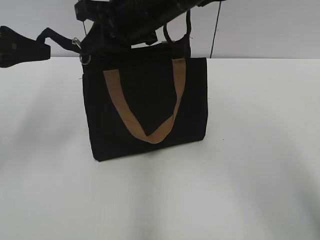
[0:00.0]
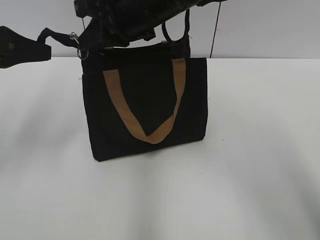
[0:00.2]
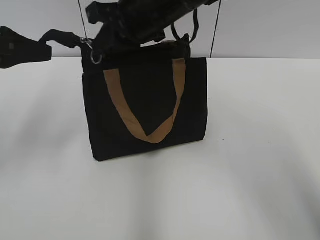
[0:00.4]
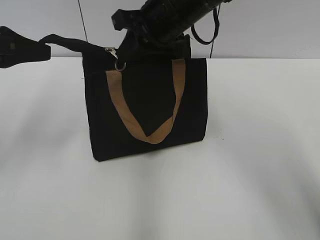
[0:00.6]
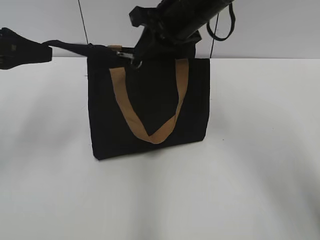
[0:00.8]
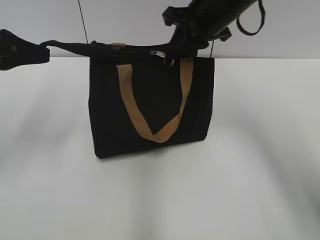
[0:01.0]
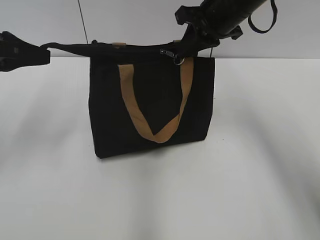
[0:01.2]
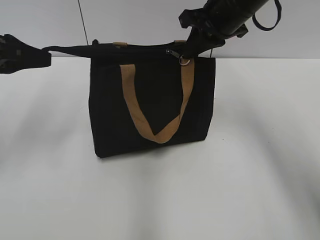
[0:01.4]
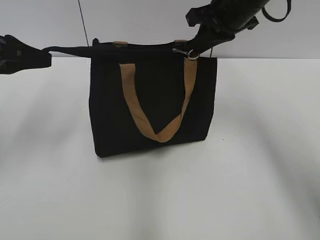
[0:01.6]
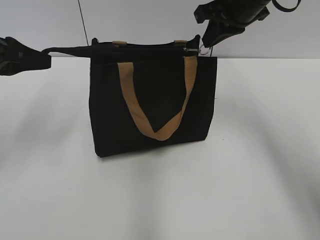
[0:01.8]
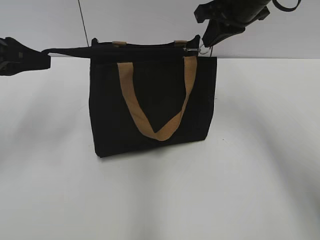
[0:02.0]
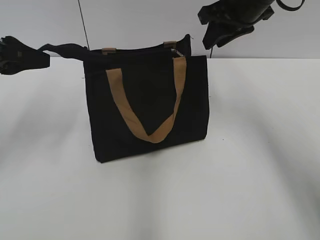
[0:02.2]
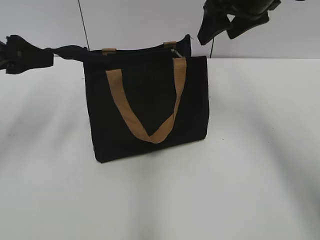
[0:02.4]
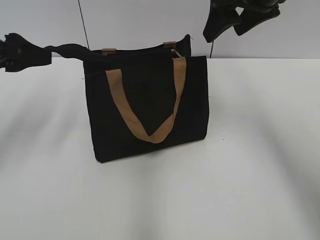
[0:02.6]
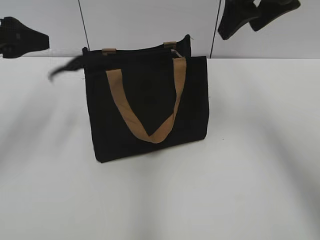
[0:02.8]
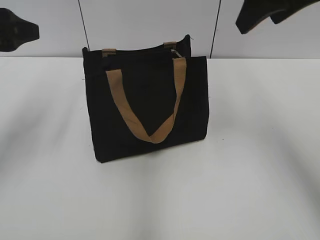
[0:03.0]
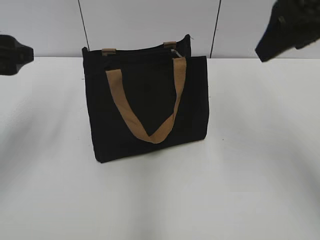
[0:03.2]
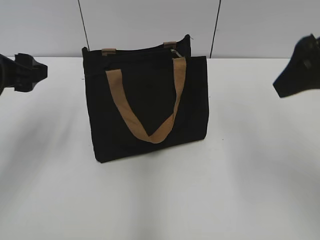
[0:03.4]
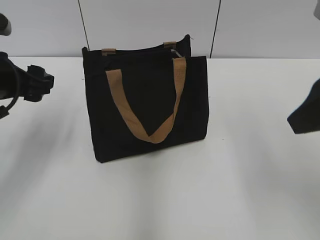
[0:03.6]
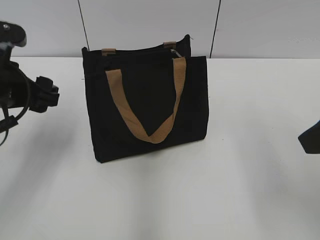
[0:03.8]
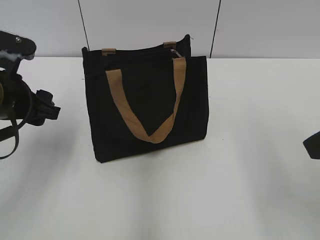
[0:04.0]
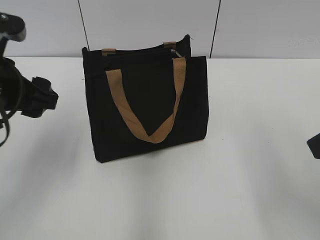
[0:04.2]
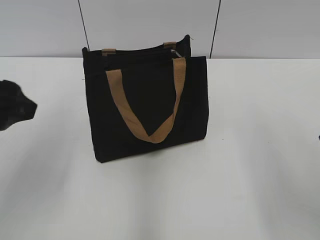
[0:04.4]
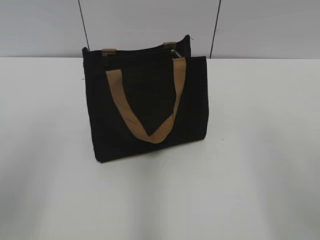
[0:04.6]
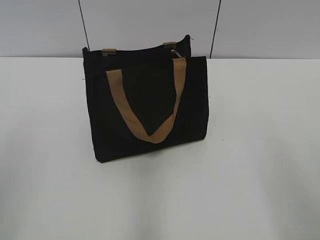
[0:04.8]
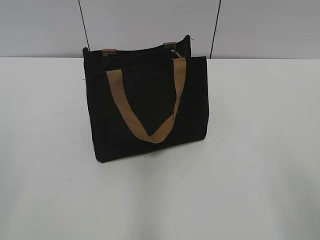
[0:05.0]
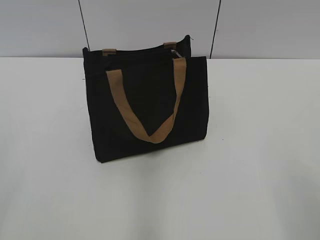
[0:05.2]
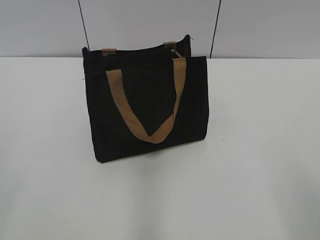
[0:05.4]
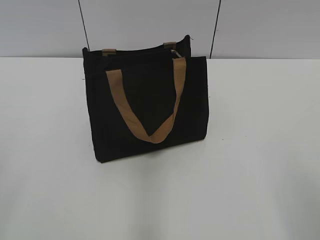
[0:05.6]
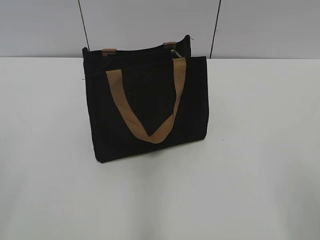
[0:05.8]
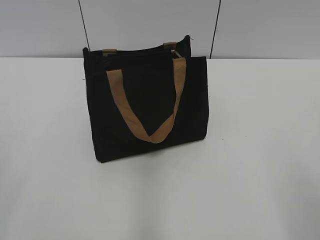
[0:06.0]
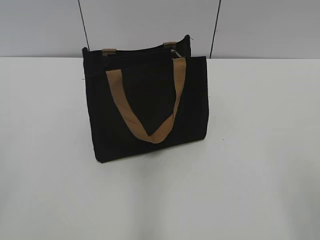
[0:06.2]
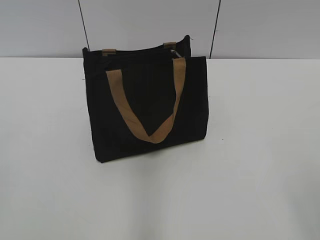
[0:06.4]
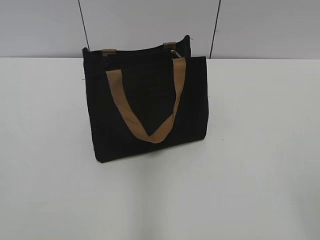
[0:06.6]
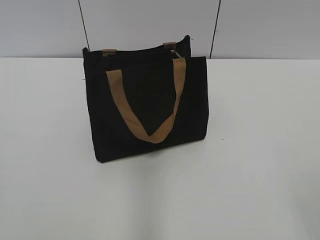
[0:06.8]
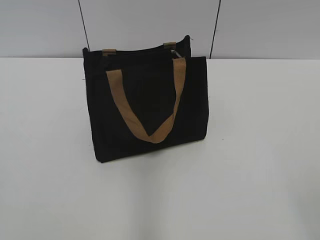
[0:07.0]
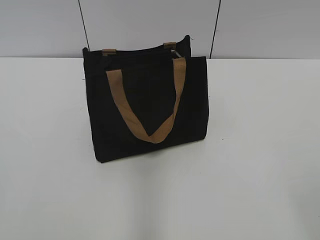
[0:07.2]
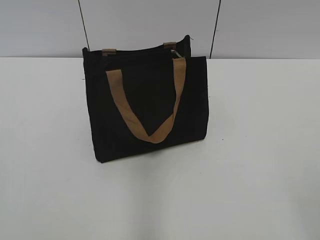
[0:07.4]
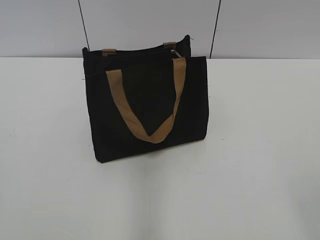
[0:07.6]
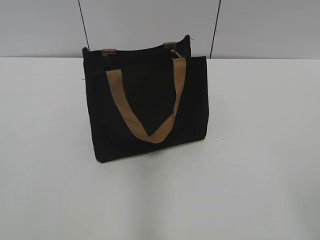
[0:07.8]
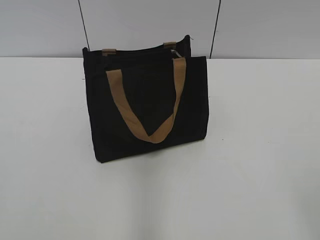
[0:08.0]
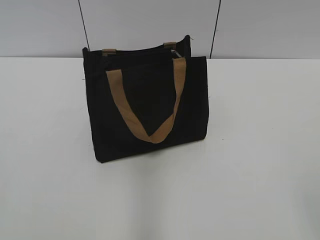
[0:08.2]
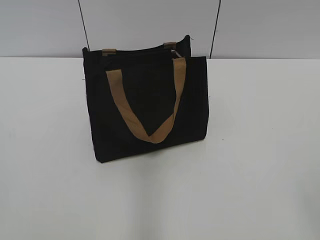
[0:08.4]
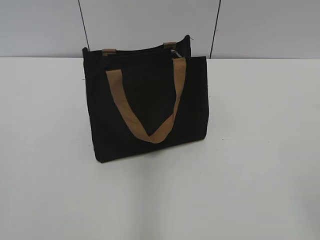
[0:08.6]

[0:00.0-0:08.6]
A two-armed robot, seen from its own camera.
Step, 0:00.0 to 0:02.0: Zip up the bag with your right hand.
Step, 0:02.2 to 0:02.8: Grab the zipper with your left hand.
0:00.0 to 0:01.4: The right gripper moves to the right, roughly 15 cm.
0:01.4 to 0:02.8: The right gripper shifts approximately 10 cm upward and backward, and opens up. The left gripper opens its fingers.
0:02.8 to 0:04.4: The left gripper is displaced backward by some 10 cm. The right gripper moves backward, roughly 20 cm.
0:04.4 to 0:05.8: The left gripper is displaced backward and to the left by roughly 20 cm.
